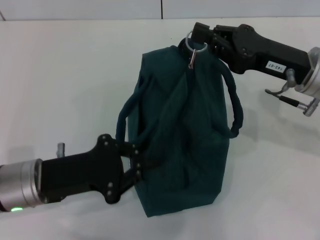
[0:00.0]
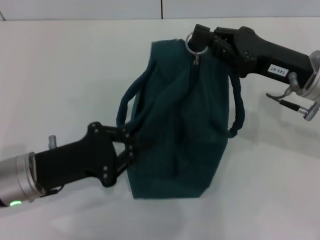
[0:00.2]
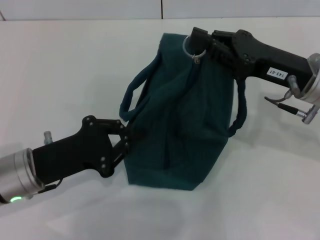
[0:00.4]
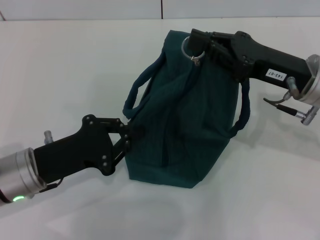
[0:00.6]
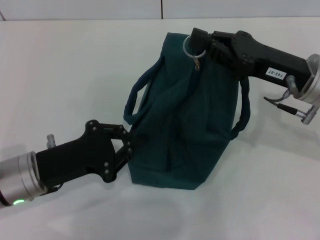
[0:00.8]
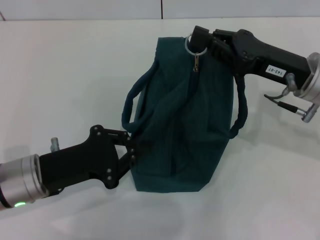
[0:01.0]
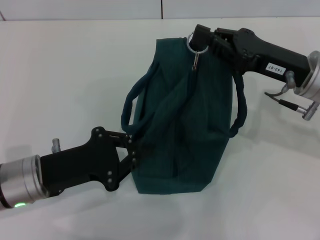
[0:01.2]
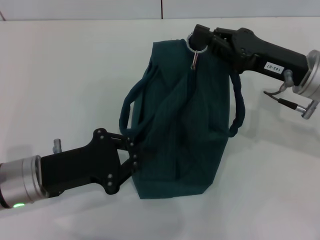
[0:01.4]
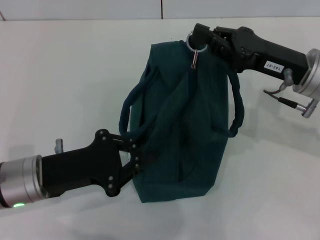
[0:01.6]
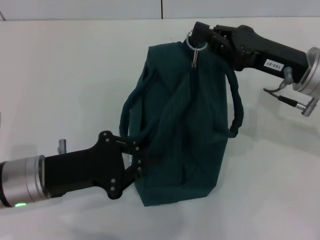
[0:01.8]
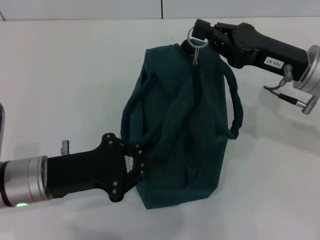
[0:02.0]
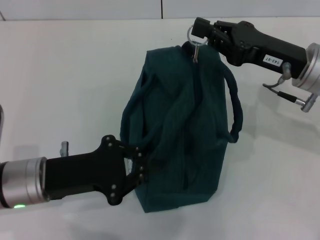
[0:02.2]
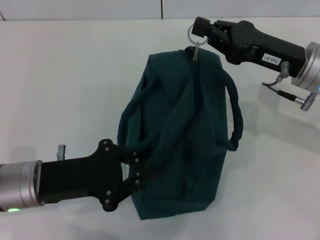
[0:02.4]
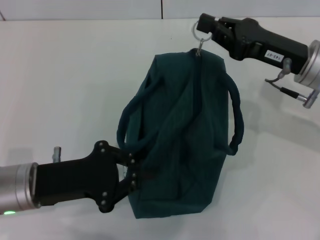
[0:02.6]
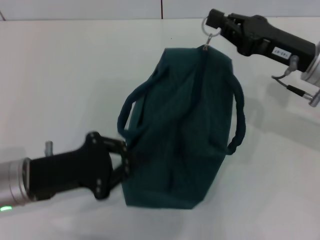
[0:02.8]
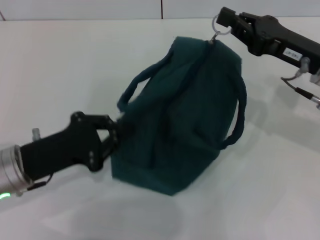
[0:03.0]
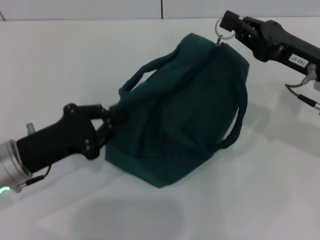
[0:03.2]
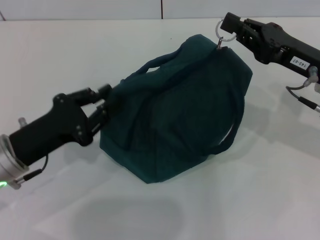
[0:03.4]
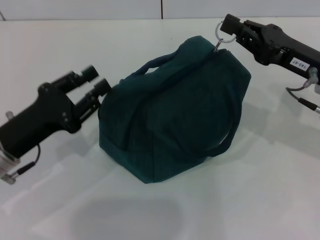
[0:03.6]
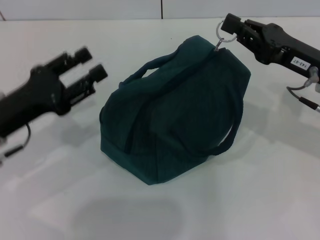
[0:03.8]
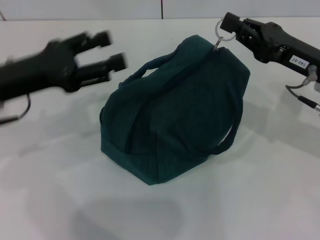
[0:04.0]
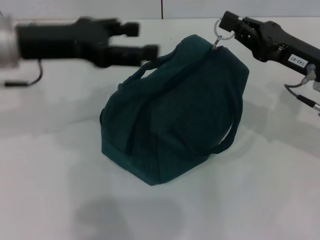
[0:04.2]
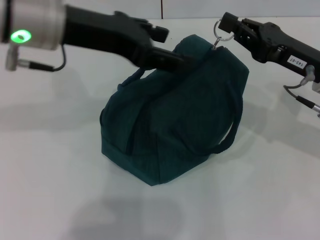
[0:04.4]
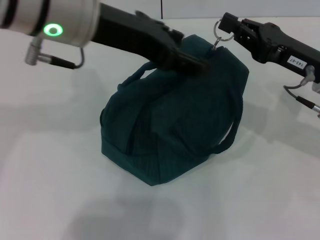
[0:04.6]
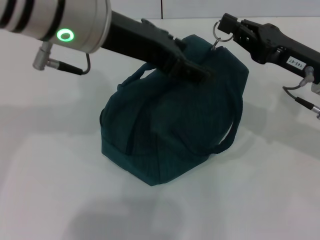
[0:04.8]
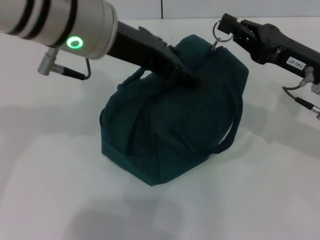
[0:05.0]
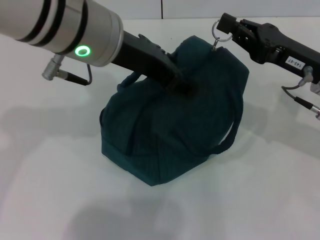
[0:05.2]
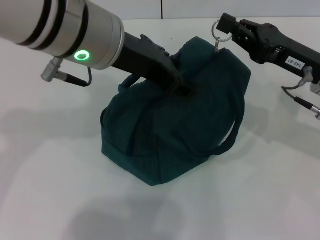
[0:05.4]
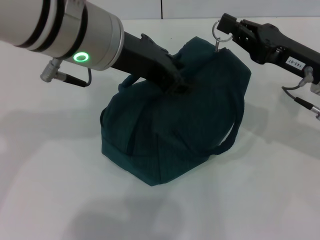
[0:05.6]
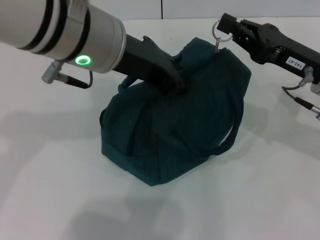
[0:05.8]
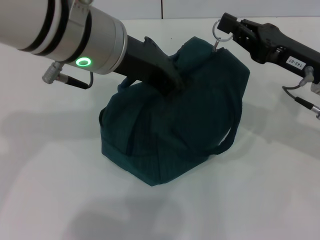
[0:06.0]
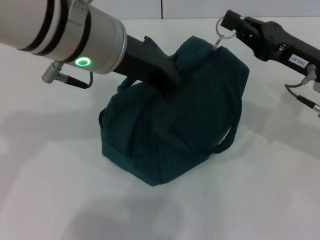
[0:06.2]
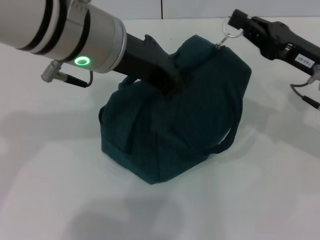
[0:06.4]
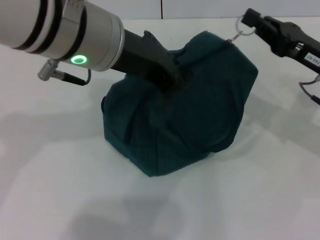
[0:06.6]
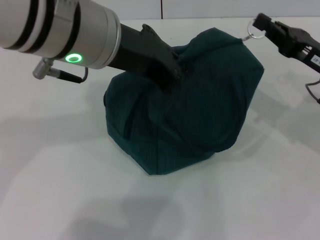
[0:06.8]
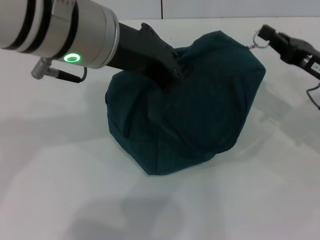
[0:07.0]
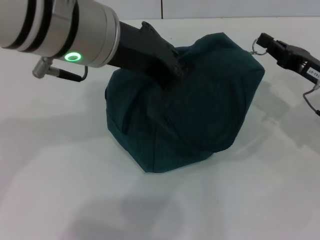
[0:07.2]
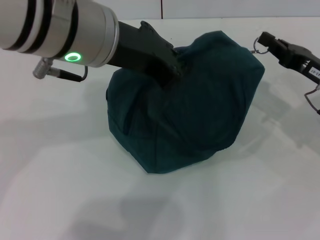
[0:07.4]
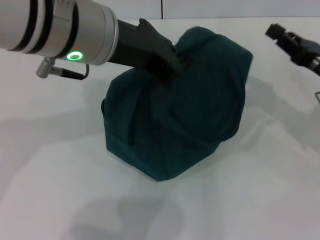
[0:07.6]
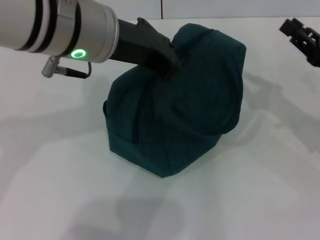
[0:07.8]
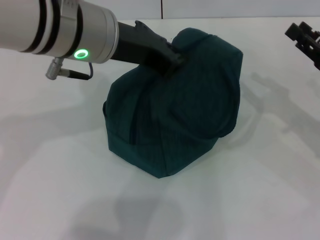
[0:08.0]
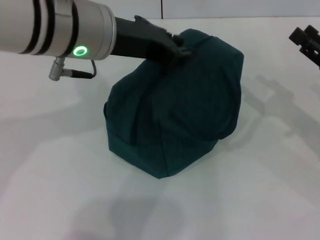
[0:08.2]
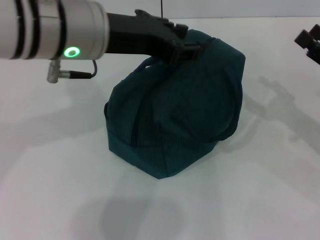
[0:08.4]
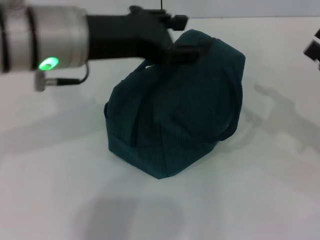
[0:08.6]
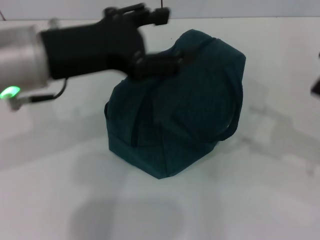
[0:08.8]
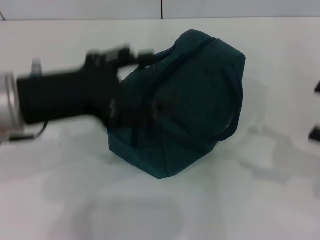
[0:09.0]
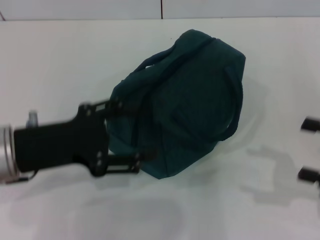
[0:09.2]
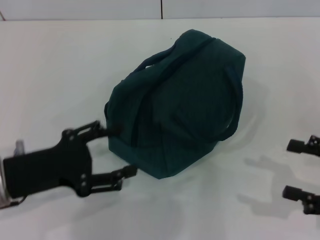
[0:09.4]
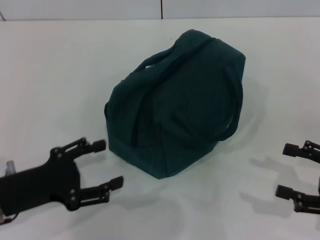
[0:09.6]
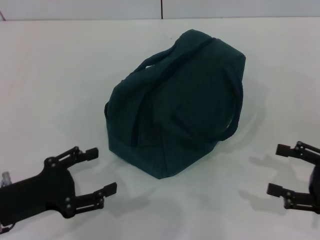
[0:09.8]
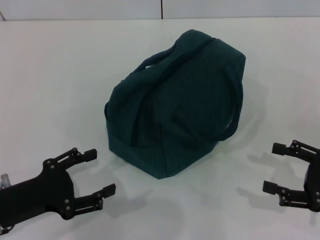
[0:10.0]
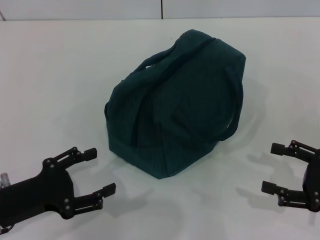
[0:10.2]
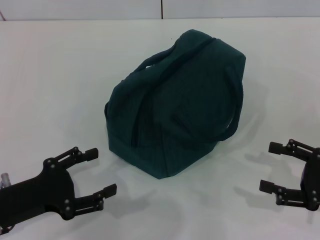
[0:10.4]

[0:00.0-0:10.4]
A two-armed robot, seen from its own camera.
Step, 0:00.0 to 0:07.4: Zip up the lunch bag with your right hand.
Step, 0:07.6 to 0:08.6: Hold the lunch bag with your left hand.
0:00.0 to 0:01.4: The grippers move only a little.
0:03.0 to 0:04.4: The left gripper moves upward, forward and to the right, approximately 25 cm, and opens.
0:04.4 to 0:06.0: The left gripper heads to the right, covering roughly 5 cm, and closes its fingers.
0:06.0 to 0:07.4: The right gripper changes place by roughly 5 cm.
0:07.4 to 0:09.0: The left gripper shifts about 15 cm to the left and downward, and opens. Meanwhile the right gripper shifts some 15 cm backward and to the right, and opens its fingers.
0:09.0 to 0:10.4: The left gripper goes some 15 cm downward, to the left and backward. Meanwhile the right gripper moves downward, approximately 10 cm.

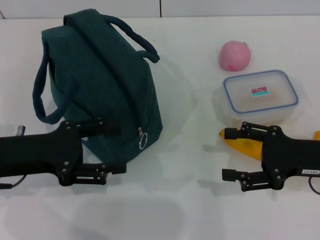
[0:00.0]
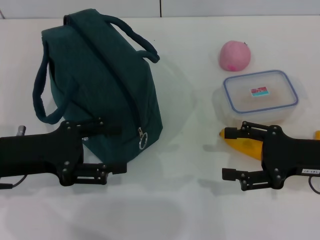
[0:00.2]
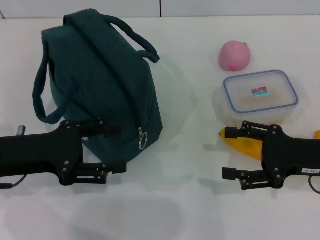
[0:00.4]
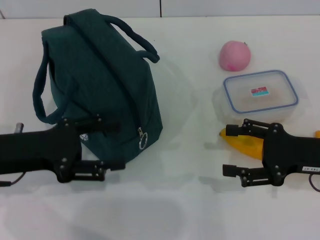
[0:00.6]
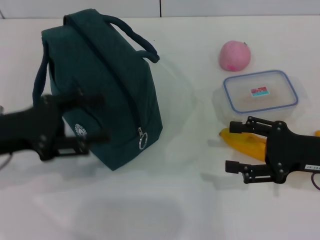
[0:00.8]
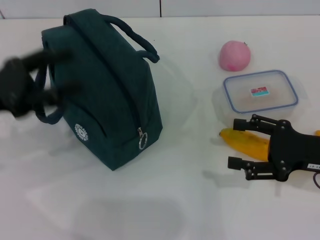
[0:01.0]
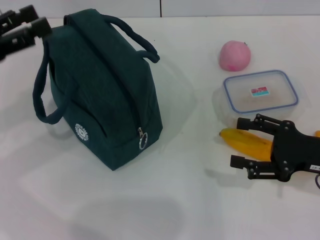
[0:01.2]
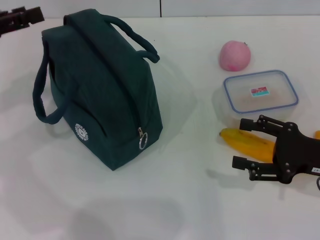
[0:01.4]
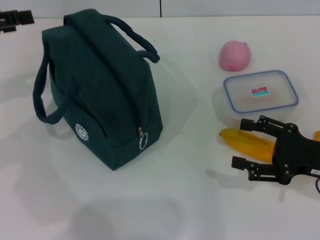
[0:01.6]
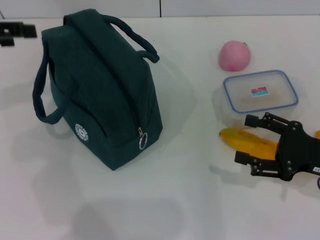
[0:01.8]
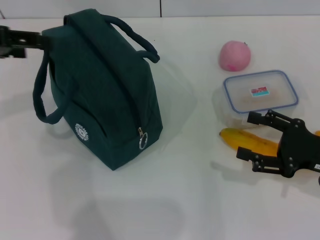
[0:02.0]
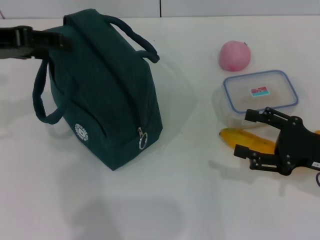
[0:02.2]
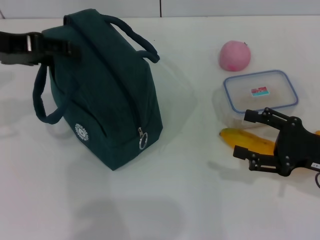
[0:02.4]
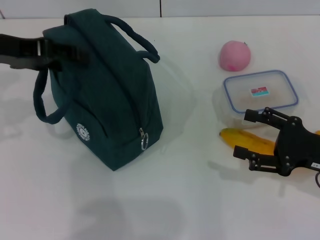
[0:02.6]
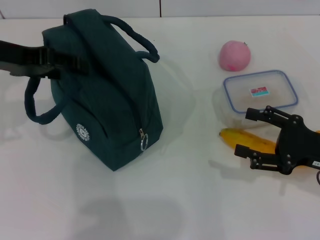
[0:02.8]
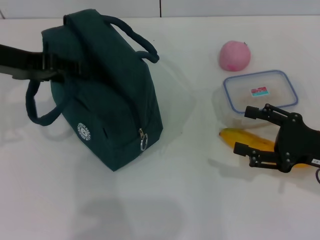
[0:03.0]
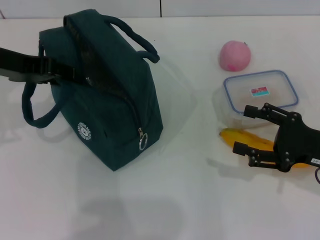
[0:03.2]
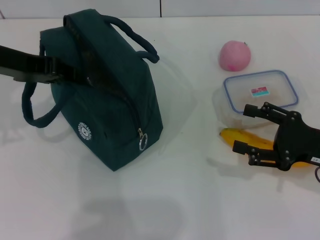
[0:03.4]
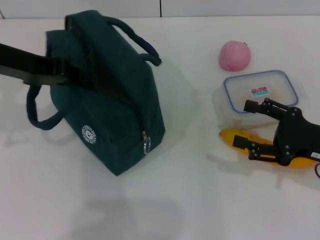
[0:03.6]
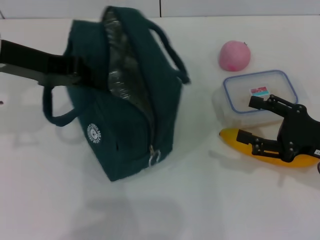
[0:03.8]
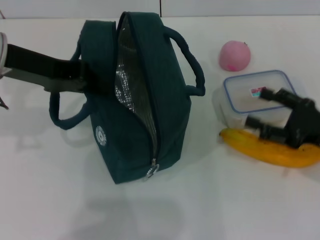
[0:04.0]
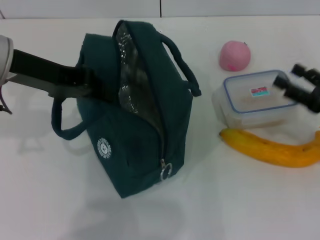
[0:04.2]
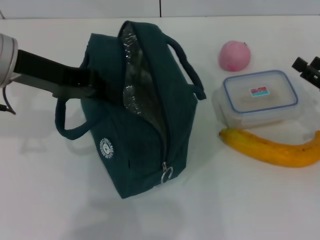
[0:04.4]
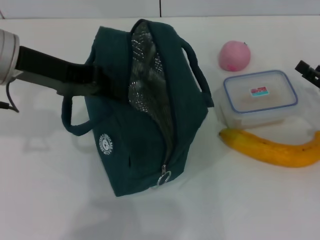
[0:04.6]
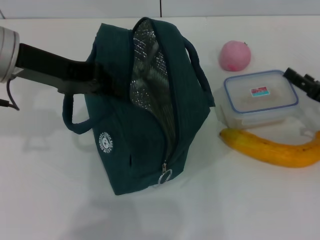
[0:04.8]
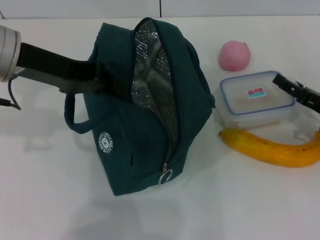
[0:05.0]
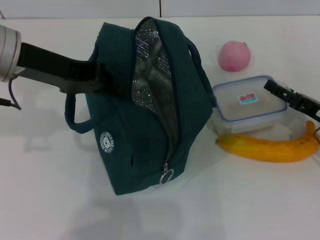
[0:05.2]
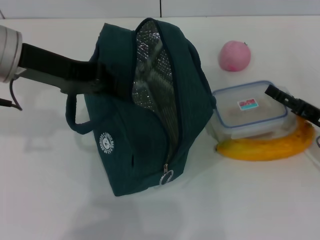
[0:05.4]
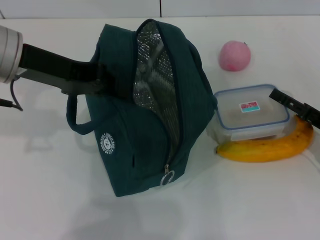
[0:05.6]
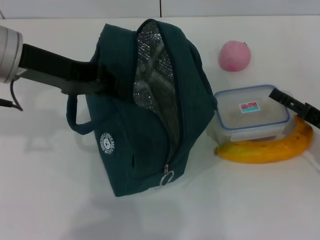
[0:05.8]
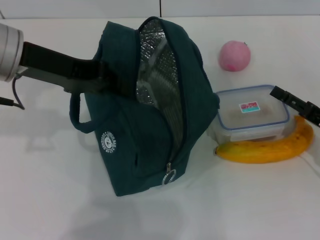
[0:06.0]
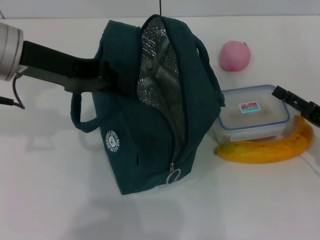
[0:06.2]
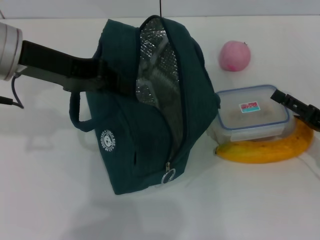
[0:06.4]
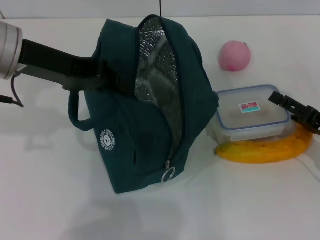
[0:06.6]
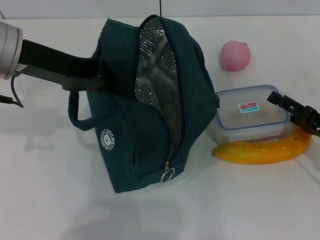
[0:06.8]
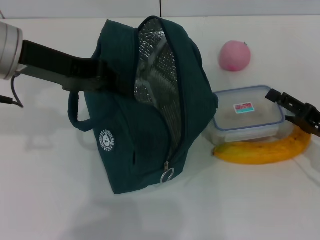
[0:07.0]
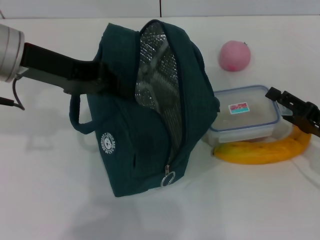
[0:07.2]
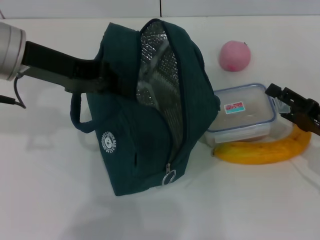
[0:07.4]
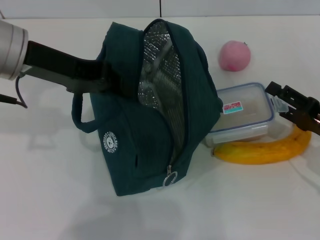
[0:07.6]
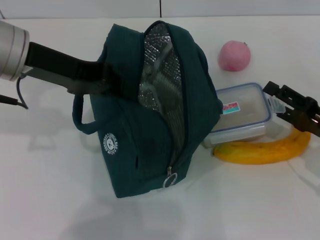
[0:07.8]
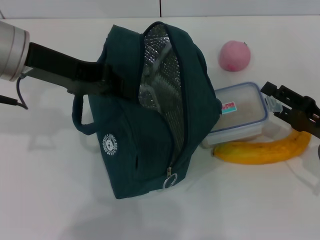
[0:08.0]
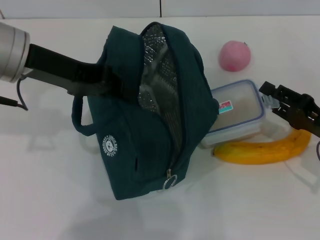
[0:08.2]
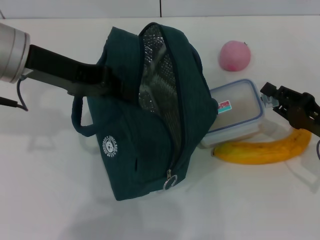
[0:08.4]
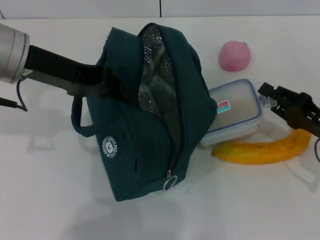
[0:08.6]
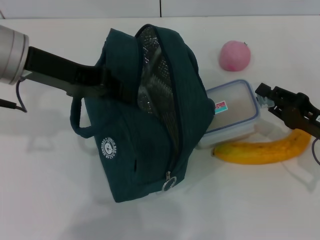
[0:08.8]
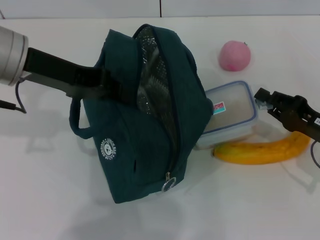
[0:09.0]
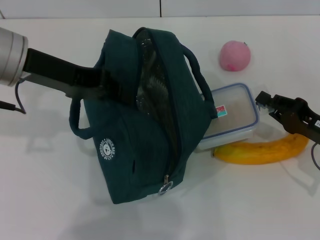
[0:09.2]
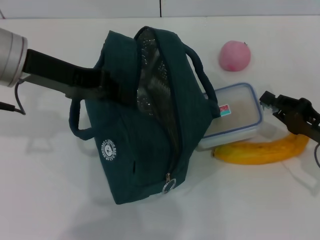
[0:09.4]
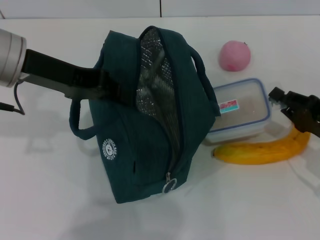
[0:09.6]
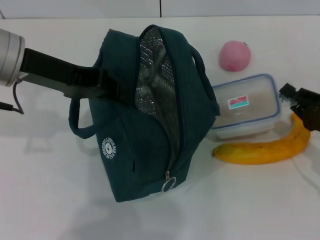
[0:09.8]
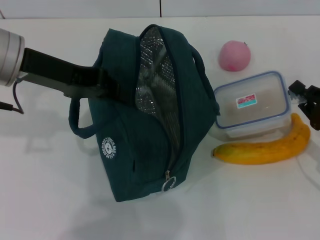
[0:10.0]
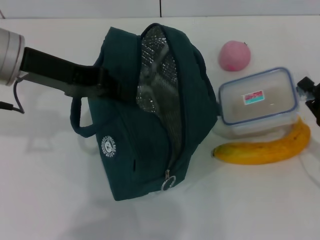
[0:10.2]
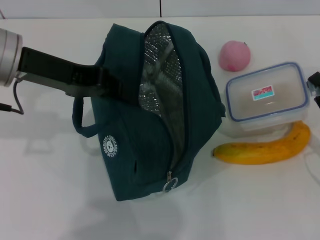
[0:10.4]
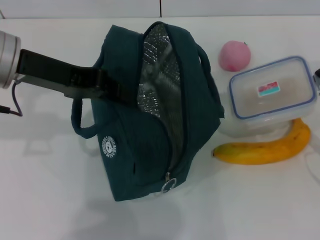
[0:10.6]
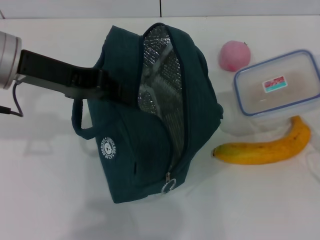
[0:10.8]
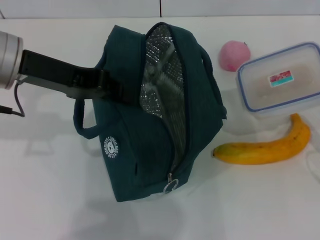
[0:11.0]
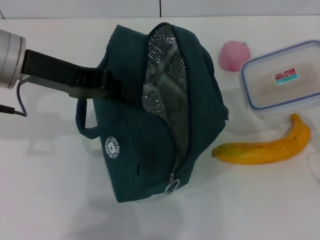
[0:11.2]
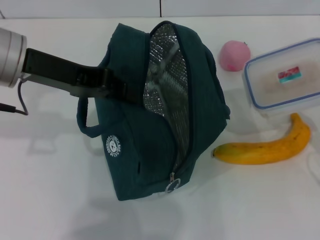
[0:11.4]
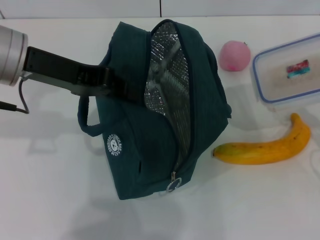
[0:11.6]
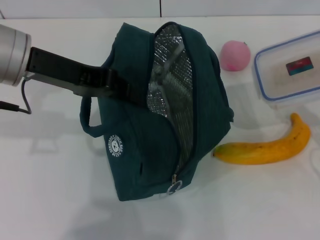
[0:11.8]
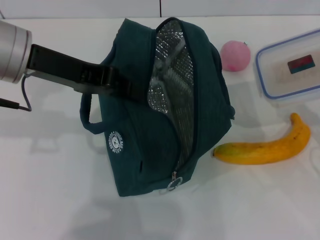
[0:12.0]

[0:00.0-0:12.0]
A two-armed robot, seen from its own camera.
Step, 0:00.0 to 0:03.8: Hold the lunch bag with your left hand.
Step, 0:04.0 to 0:09.2: Pick up the lunch box with your right hand.
0:00.0 to 0:01.6: The left gripper heads upward, to the left and forward, covering approximately 15 cm.
0:01.6 to 0:03.0: The left gripper travels to the right by roughly 10 cm.
0:03.0 to 0:04.4: The right gripper moves approximately 5 cm. Meanwhile the left gripper closes up.
0:06.0 to 0:07.6: The grippers make only small movements.
0:07.6 to 0:09.0: The right gripper closes.
0:09.0 to 0:10.4: The grippers make only small movements.
